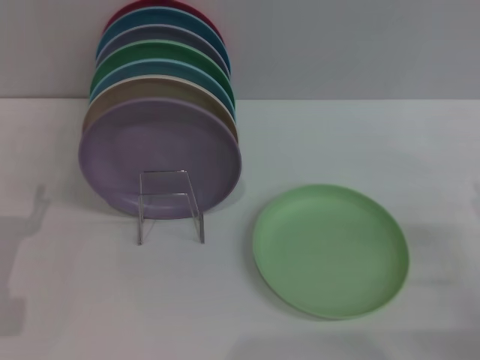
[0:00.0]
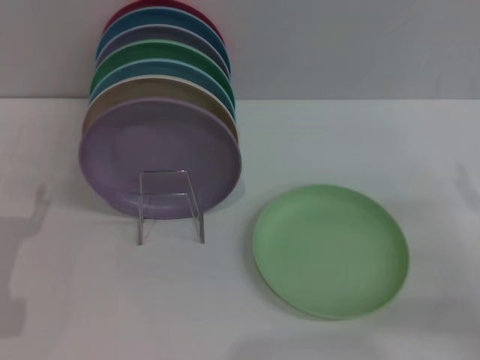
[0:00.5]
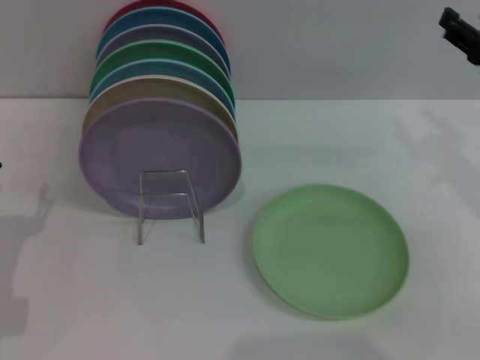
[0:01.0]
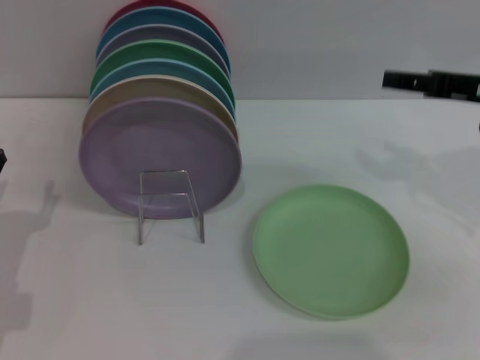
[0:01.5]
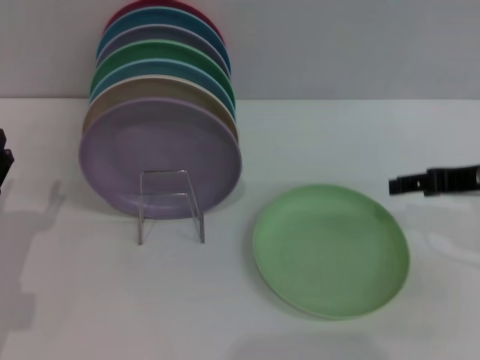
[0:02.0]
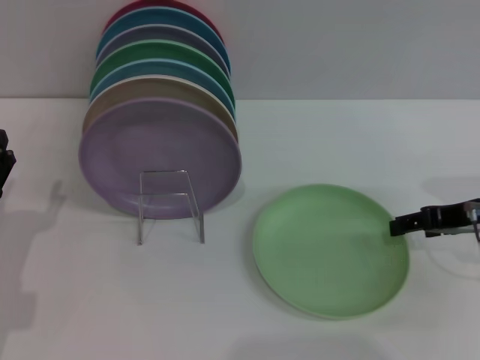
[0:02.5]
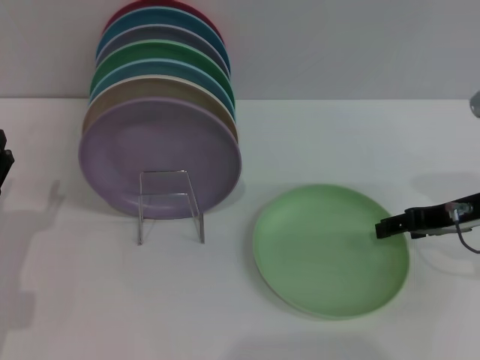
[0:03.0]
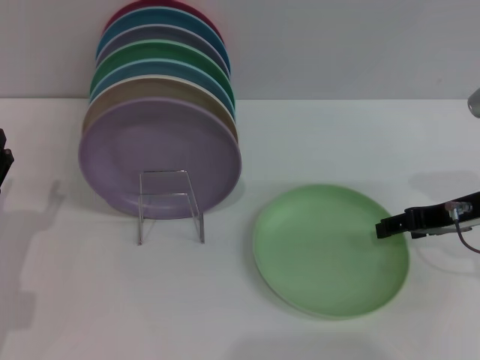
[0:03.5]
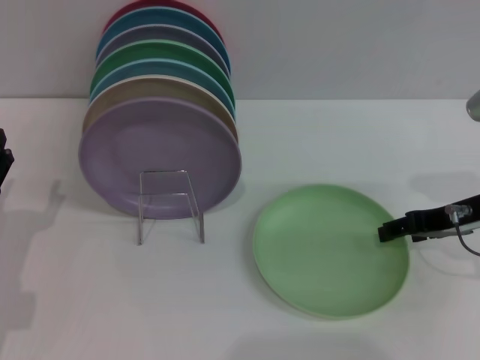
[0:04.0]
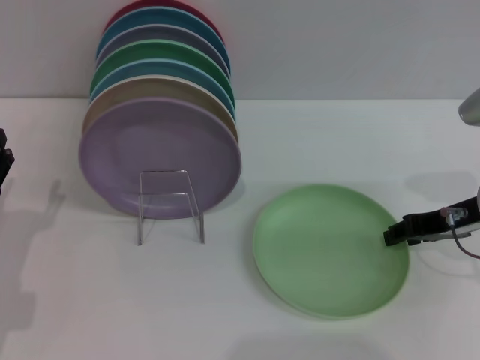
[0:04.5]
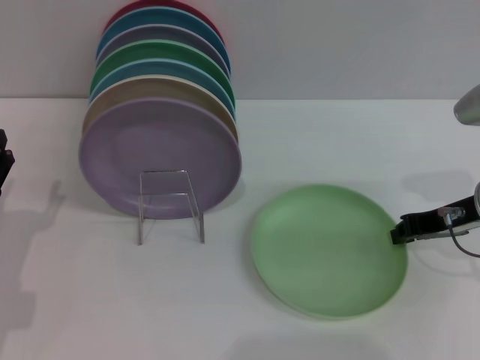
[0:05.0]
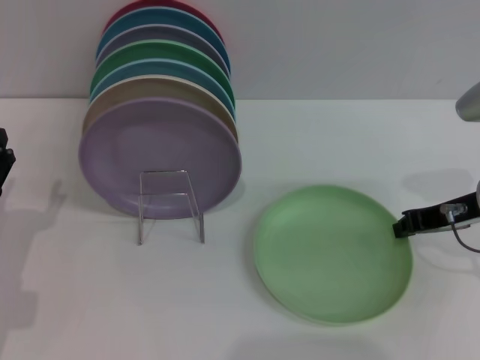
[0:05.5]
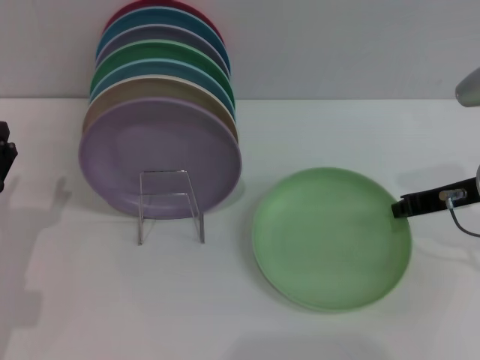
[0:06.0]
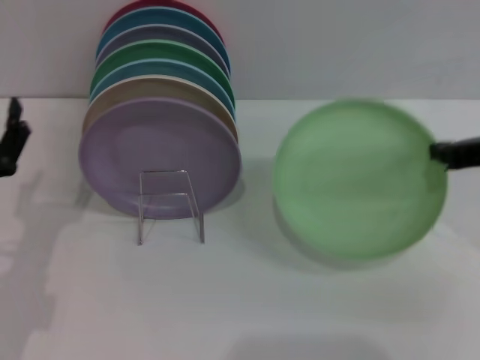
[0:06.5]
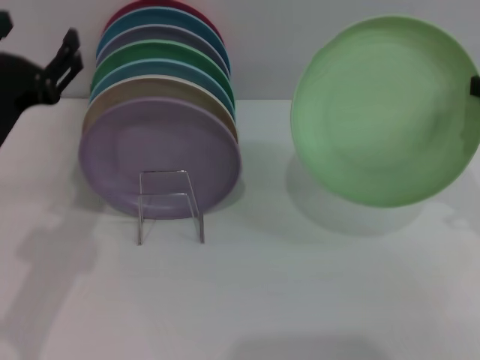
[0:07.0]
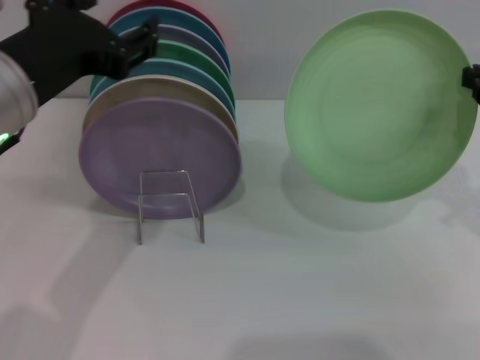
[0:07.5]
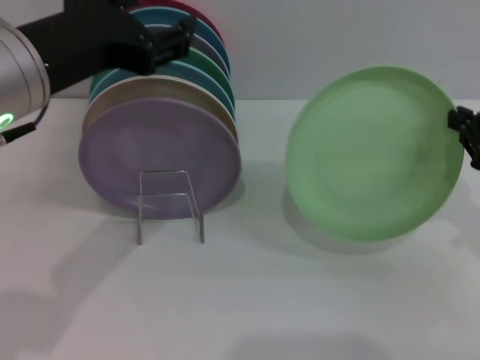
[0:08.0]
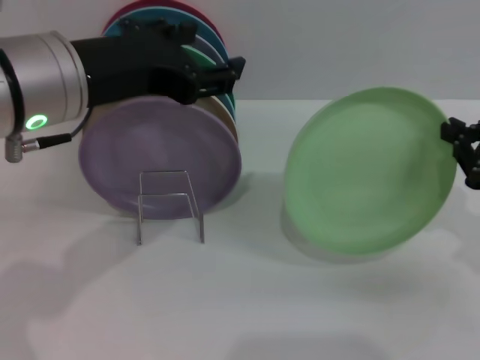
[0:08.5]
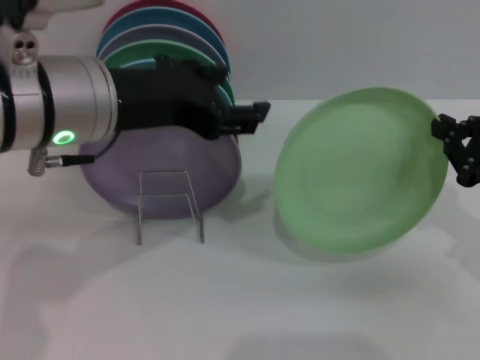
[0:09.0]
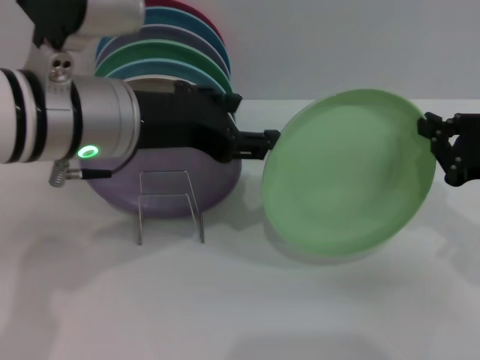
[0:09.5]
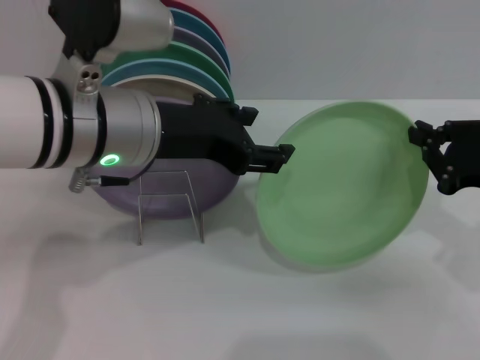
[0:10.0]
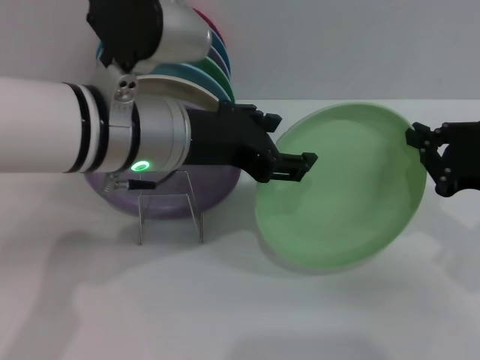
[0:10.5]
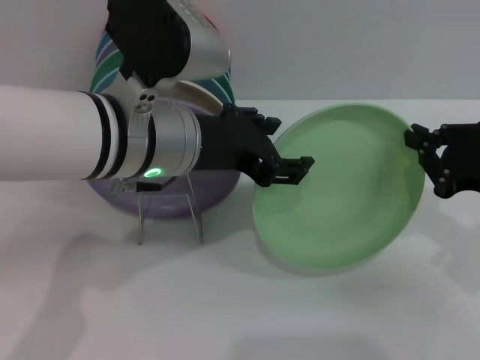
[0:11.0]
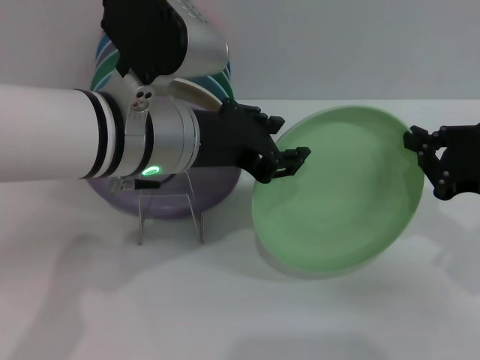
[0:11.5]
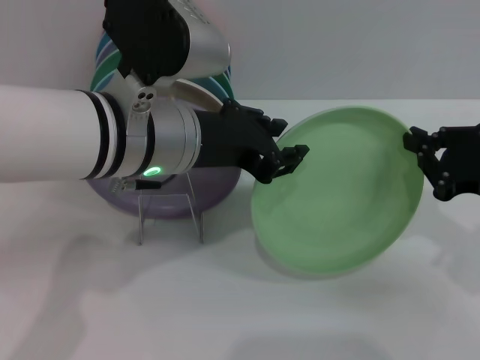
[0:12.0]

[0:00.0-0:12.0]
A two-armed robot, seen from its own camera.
Task of the whole recording: Grip the plate with one hand, pass it to the other, then set it on the shelf.
Step, 0:00.0 to 0:07.0: Pick up the plate with the right gripper.
0:00.0 to 0:02.0: The right gripper moves upward, forward and to the left, some 15 cm.
0:02.0 to 0:04.0: The right gripper moves about 5 cm.
0:04.0 to 0:06.0: The right gripper closes.
0:06.0 to 0:08.0: The right gripper is displaced backward and to the right by about 10 cm, and travels upward and back again, approximately 10 cm each way, while the left gripper travels upward and to the right by about 25 cm.
0:08.0 to 0:10.0: The left gripper travels to the right by roughly 5 cm.
0:10.0 to 0:12.0: The left gripper closes up.

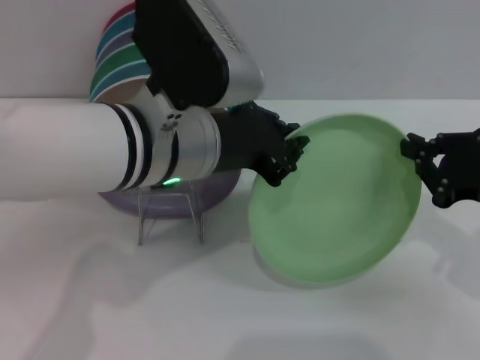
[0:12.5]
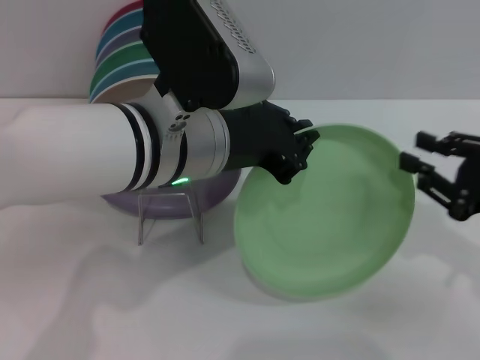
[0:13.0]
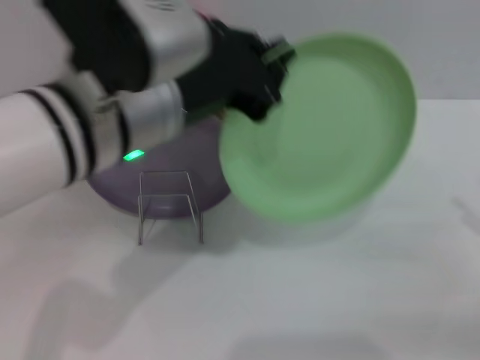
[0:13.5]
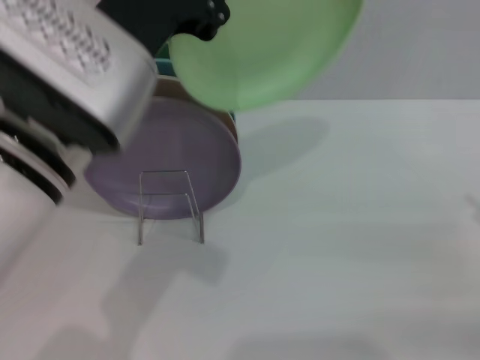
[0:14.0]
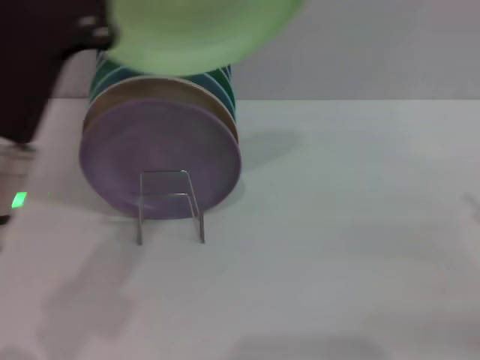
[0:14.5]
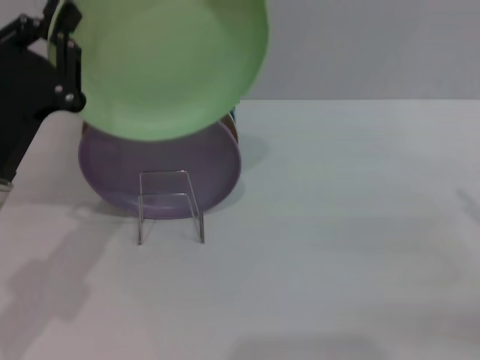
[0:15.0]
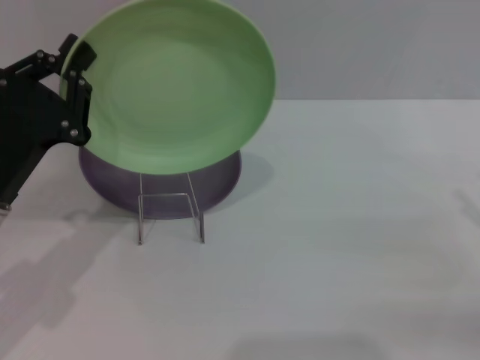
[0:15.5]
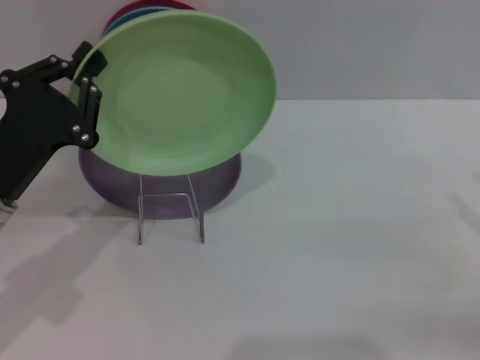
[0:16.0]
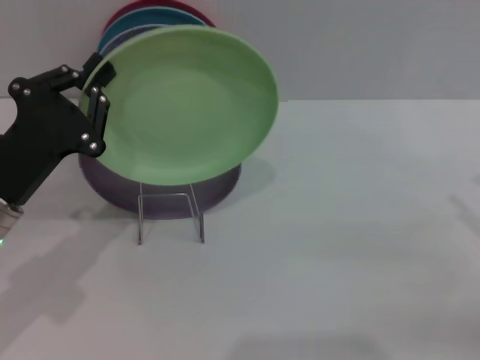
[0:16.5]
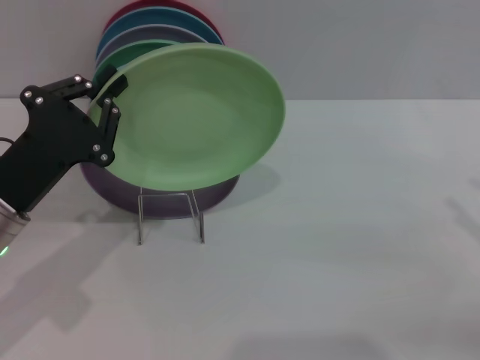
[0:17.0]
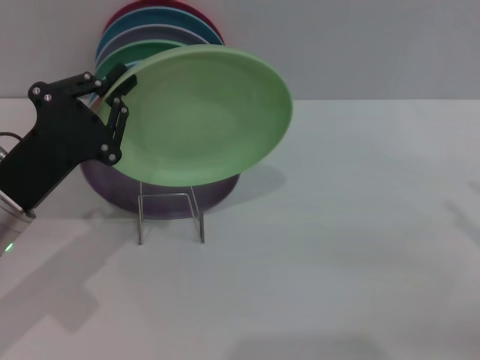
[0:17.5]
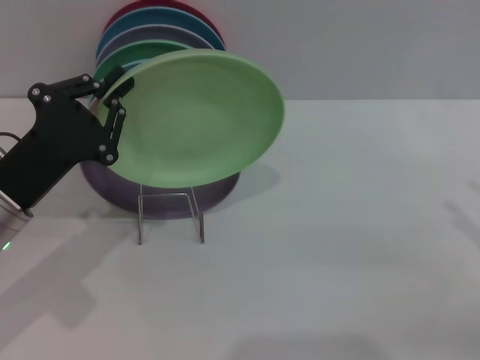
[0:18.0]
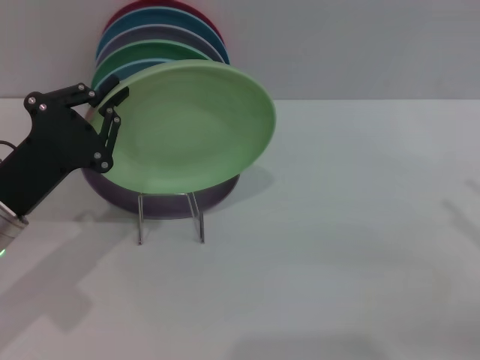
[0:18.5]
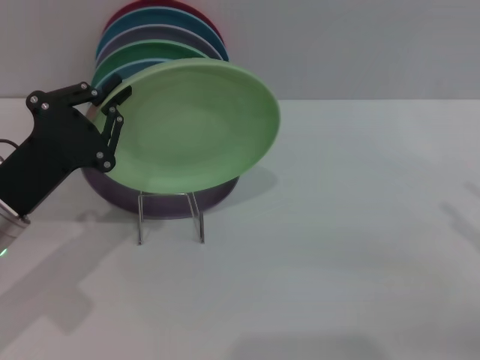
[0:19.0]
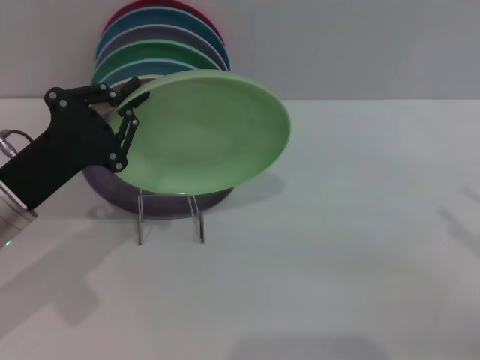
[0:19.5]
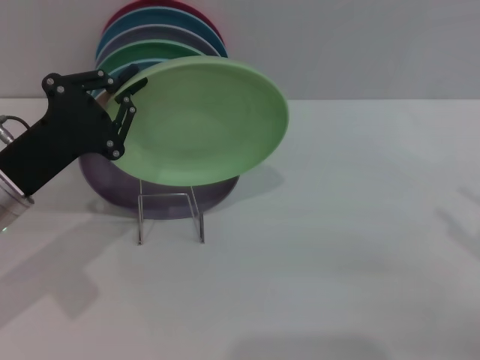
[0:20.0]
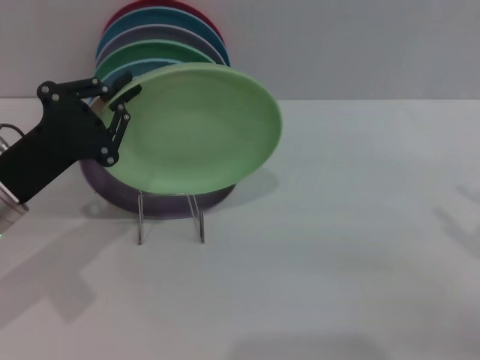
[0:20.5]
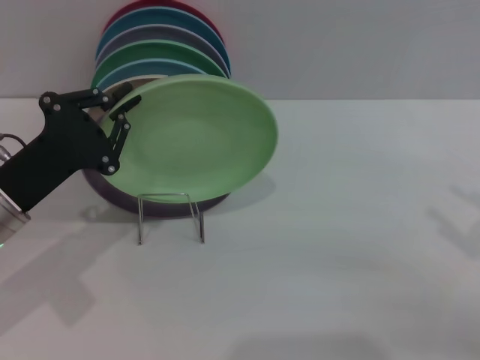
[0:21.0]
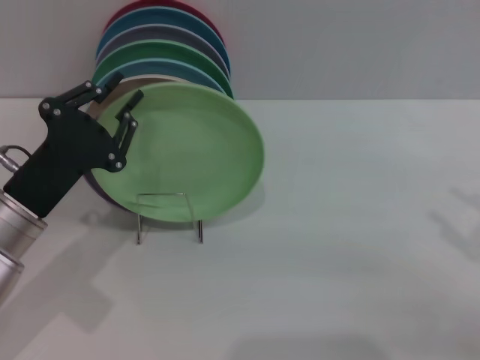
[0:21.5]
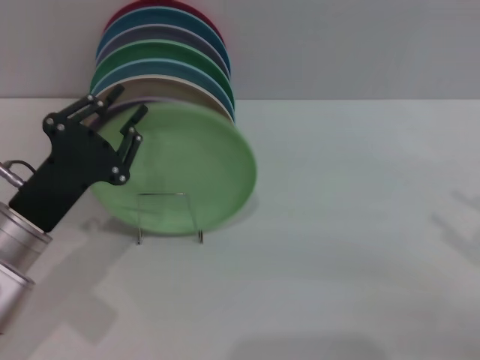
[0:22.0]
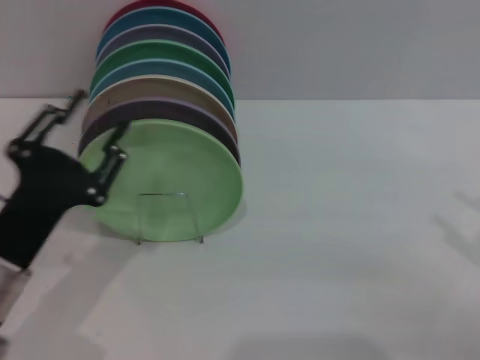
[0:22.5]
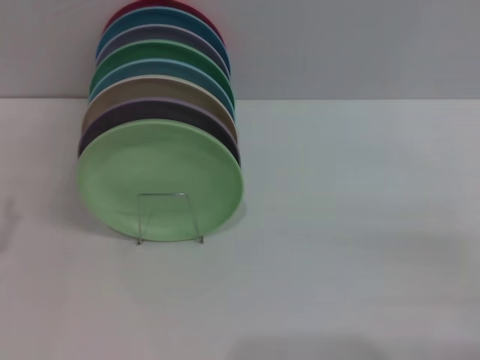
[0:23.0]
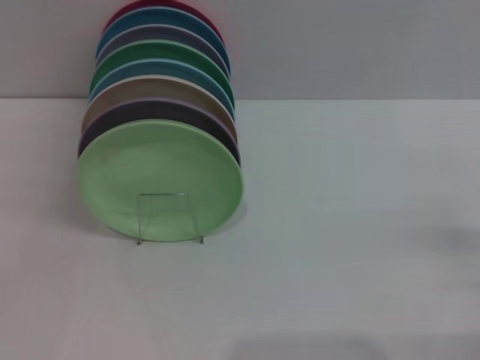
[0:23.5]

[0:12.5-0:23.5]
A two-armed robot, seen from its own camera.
Task of the whole recording: Grip the plate with one hand, pass it to the other, then set it on the shelf.
Step, 0:13.5 to 0:22.5: Place the plate on the shelf with the left gripper.
0:12.5 to 0:14.5: The left gripper shifts roughly 10 cm to the left and backward, while the right gripper travels to the right and backward by roughly 10 cm, and opens.
0:14.5 to 0:16.0: The left gripper heads downward and to the left, covering about 10 cm.
0:16.0 to 0:21.5: The grippers make only small movements.
0:21.5 to 0:23.5: The left gripper shifts roughly 15 cm to the left and backward, and opens. The right gripper goes about 5 cm downward.
